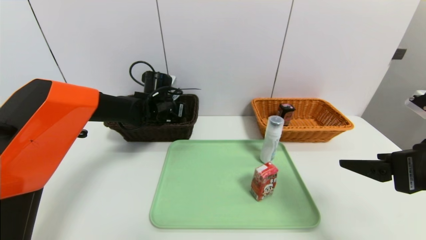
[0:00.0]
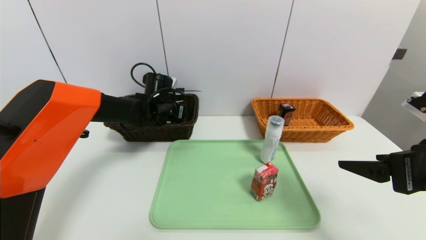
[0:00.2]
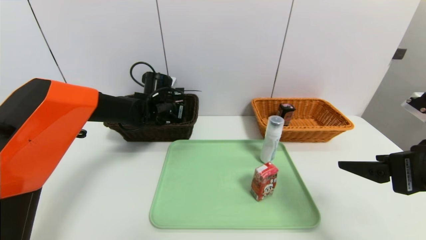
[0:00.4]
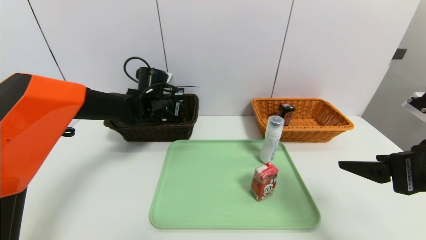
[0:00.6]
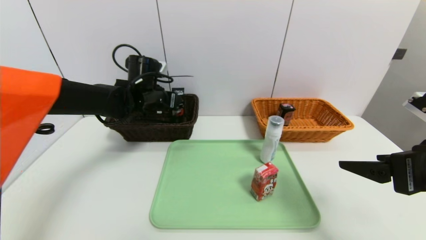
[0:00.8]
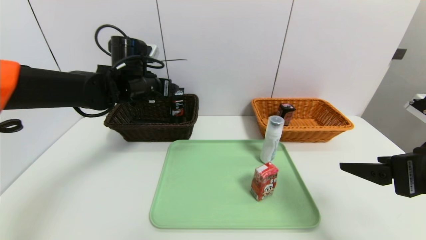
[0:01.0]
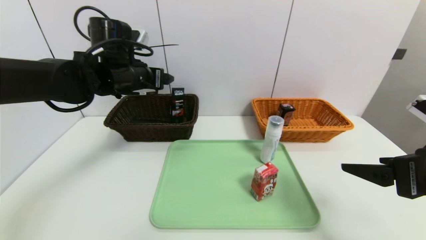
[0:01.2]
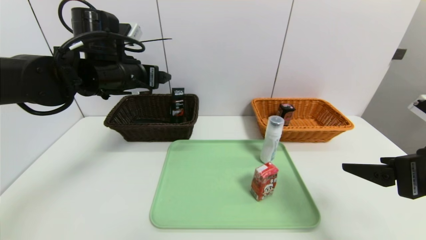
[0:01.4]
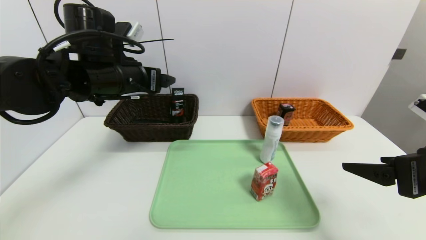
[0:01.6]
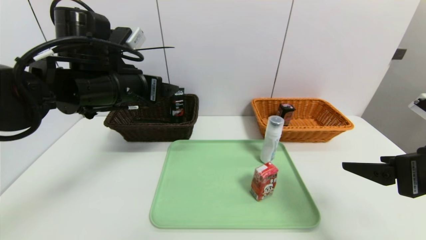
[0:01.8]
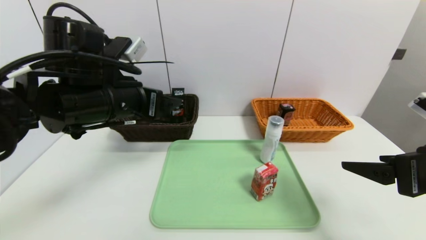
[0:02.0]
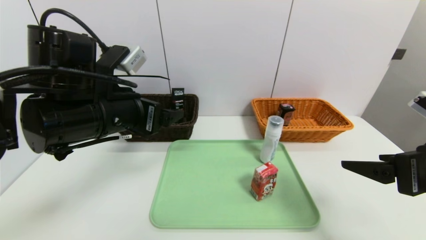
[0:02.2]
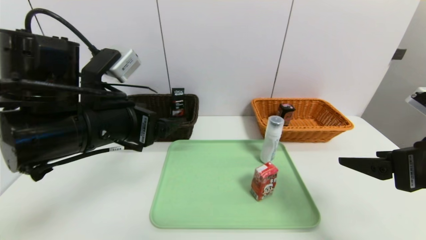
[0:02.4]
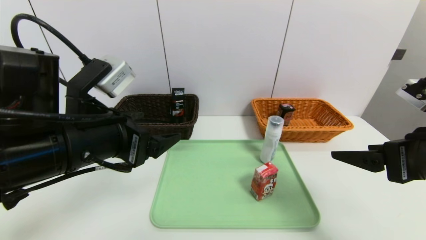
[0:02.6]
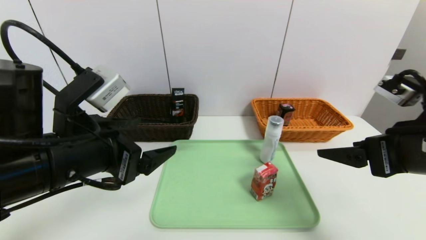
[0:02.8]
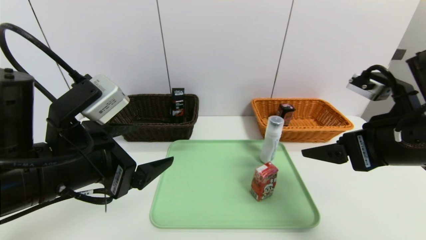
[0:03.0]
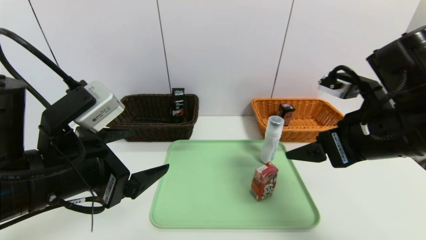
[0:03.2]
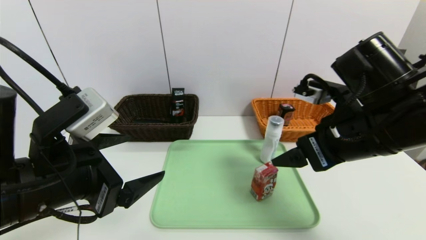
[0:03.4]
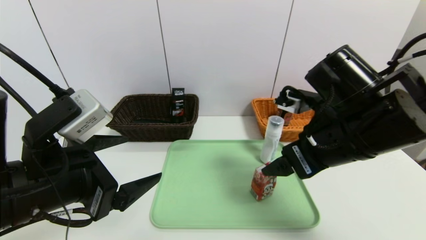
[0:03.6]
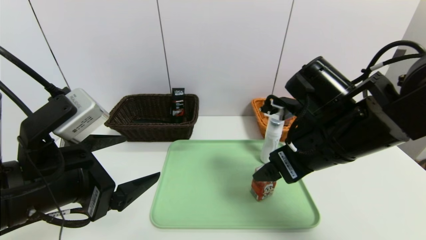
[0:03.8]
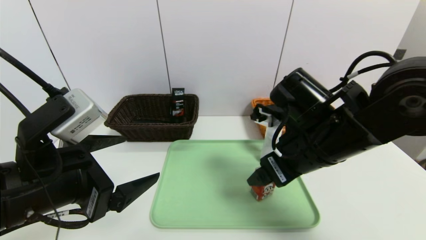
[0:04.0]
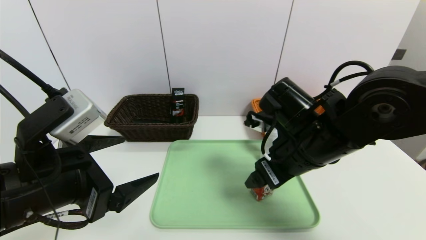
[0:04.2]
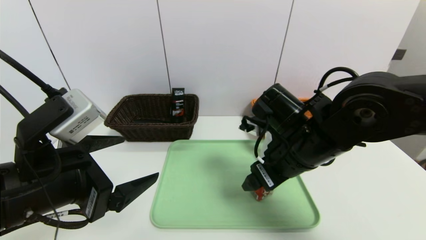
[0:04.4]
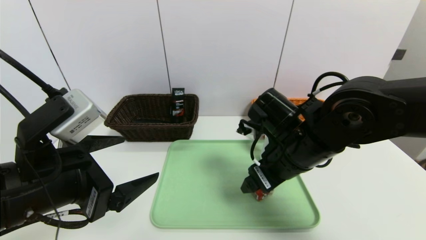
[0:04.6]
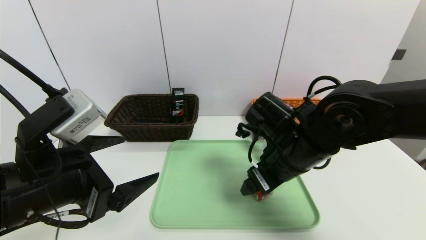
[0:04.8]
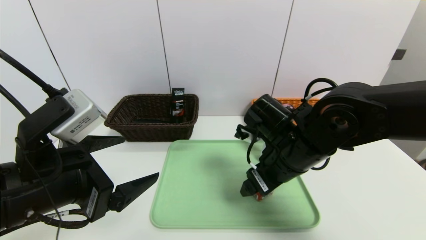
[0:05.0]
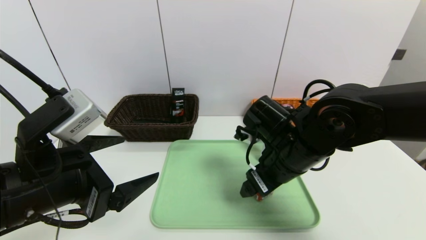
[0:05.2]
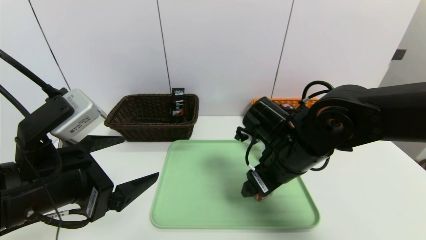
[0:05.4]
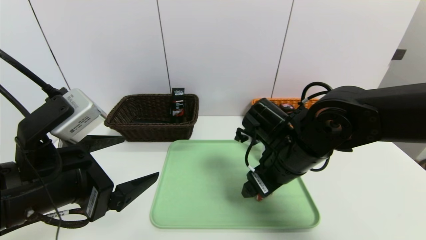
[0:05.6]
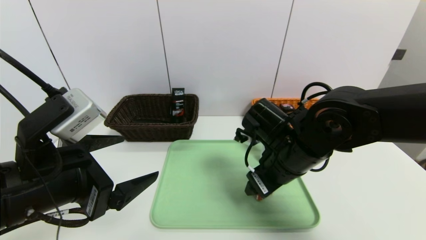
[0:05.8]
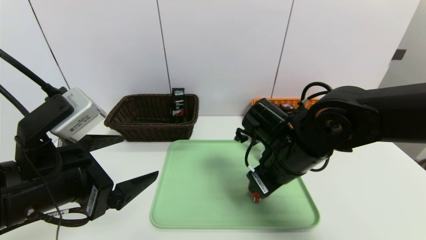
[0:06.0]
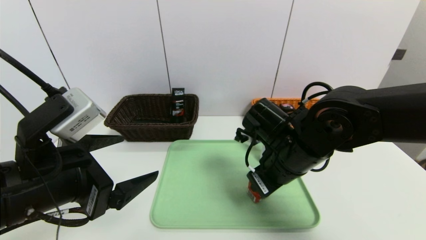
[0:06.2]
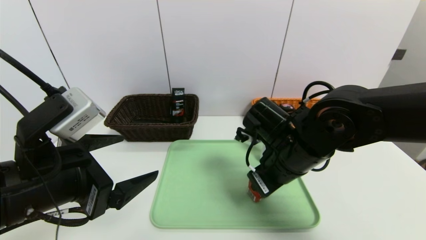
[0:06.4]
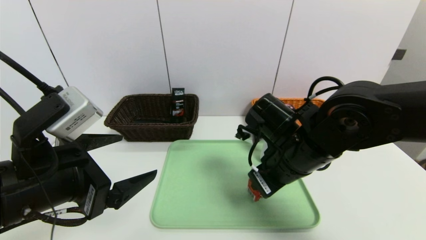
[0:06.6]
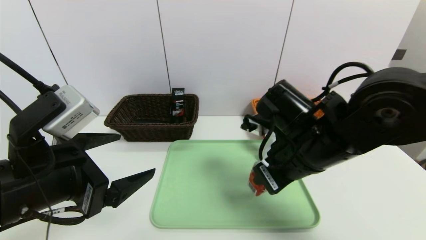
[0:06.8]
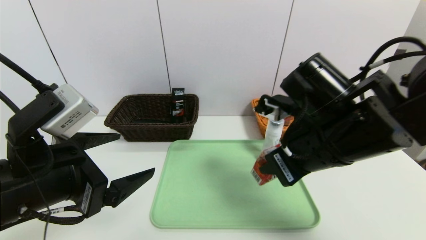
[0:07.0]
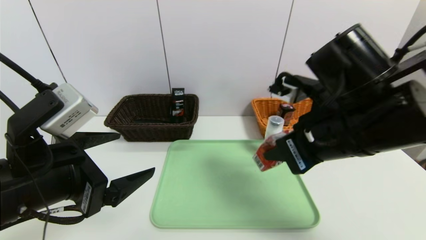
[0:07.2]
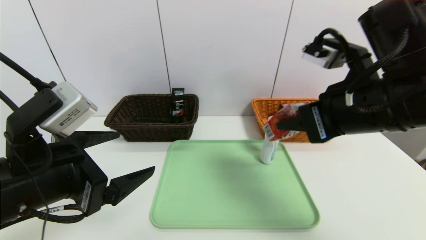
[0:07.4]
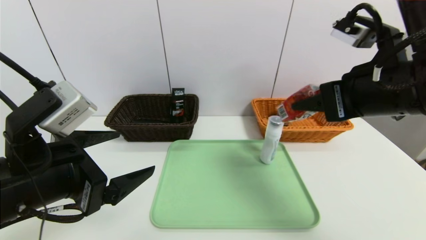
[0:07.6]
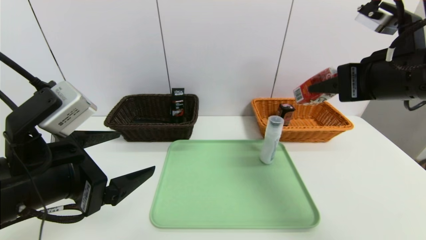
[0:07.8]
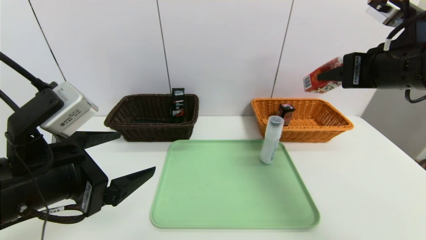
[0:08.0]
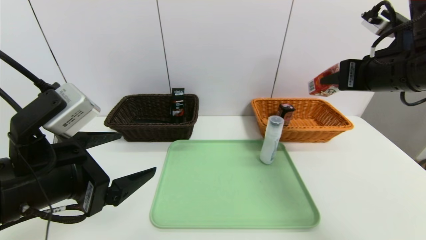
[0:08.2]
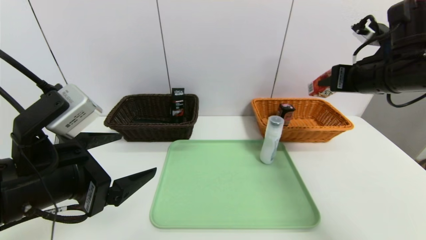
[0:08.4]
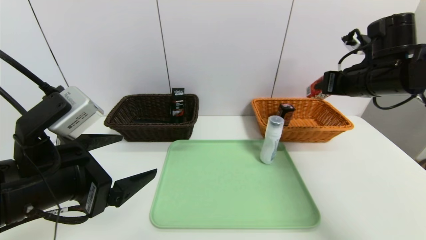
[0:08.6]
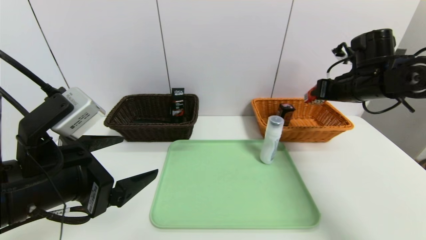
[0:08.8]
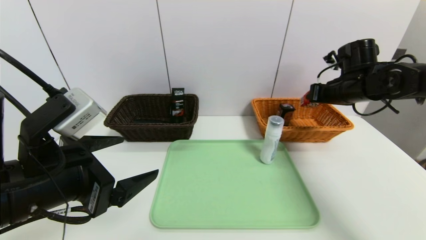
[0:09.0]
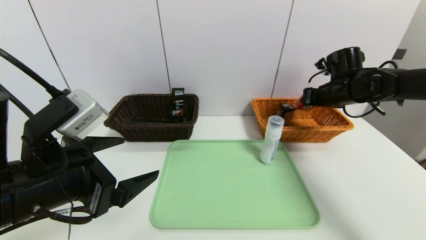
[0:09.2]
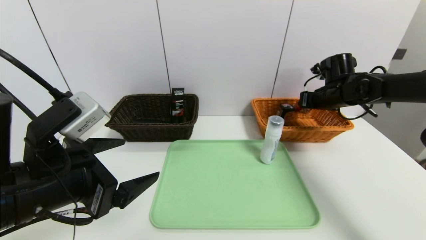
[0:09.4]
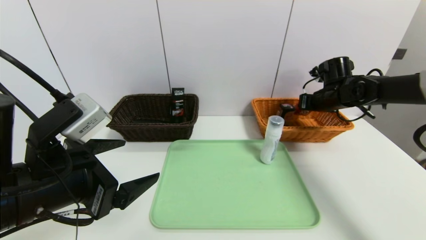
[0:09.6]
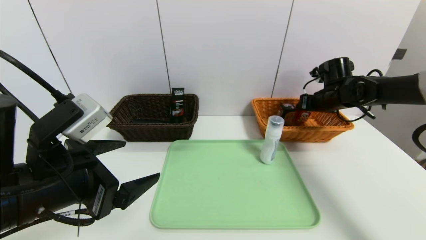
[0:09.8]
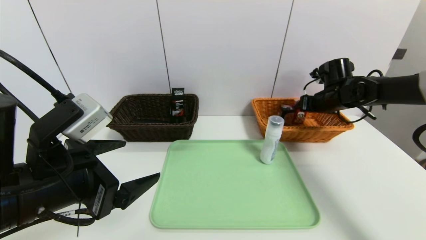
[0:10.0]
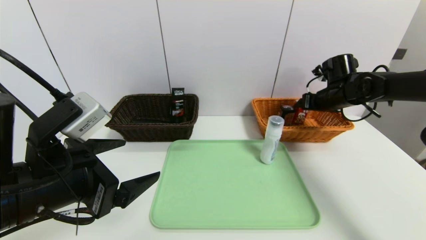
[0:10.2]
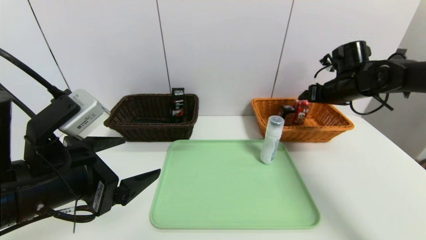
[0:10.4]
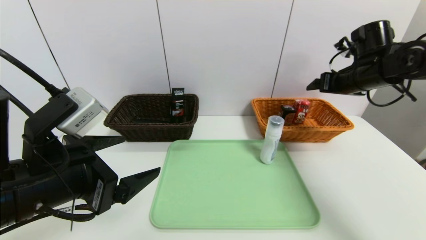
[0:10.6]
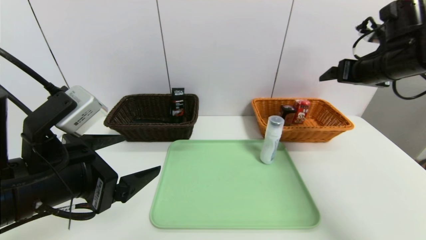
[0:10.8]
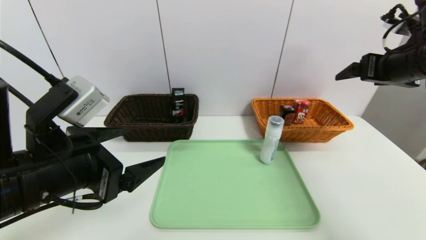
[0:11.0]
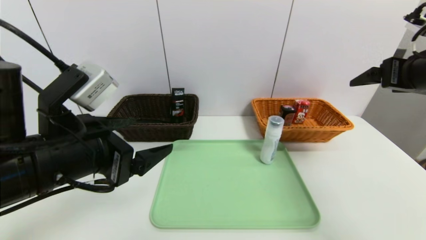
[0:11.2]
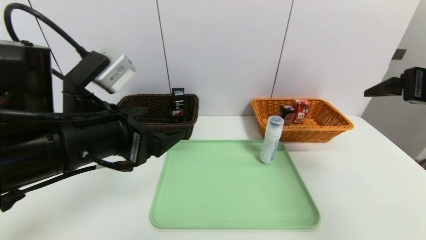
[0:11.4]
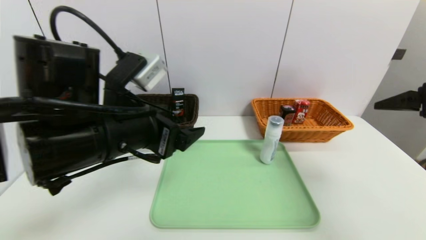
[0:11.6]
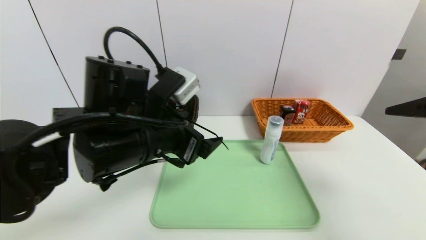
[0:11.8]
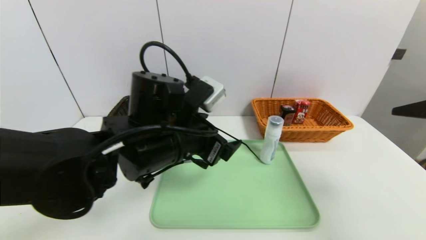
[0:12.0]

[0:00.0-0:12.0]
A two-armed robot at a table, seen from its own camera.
Task of the whole recording: place the food in the right basket with the right gripper, and place the non food items in the left basket with the left gripper.
Step, 0:01.2 to 0:10.4: Grasp the ad milk and put it in the right basket.
0:00.0 to 0:01.6: The left gripper moves backward and upward, about 20 cm, and opens up.
0:01.6 to 0:03.0: The right gripper is displaced to the left by about 5 cm. The left gripper is displaced backward by about 15 cm.
0:03.0 to 0:04.4: The right gripper heads to the left, forward and downward, covering about 15 cm.
0:04.4 to 0:06.0: The right gripper closes.
0:06.0 to 0:07.6: The right gripper is displaced upward and to the right by some 15 cm.
0:07.6 to 0:09.0: The right gripper shifts approximately 25 cm forward, downward and to the right.
0:09.0 to 0:10.4: The right gripper opens up.
0:10.4 to 0:12.0: The left gripper is displaced to the right and forward by approximately 15 cm, while the right gripper is displaced backward by roughly 25 cm.

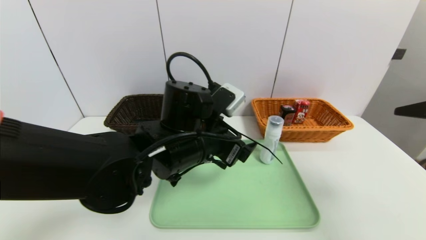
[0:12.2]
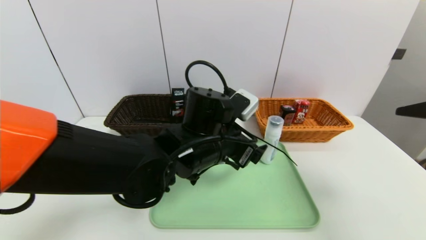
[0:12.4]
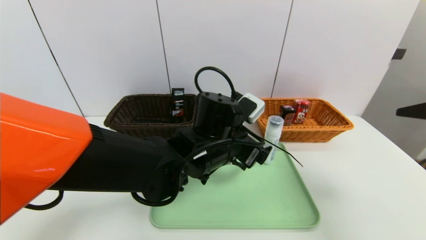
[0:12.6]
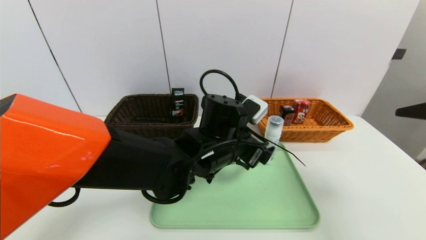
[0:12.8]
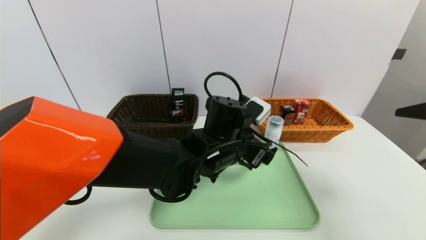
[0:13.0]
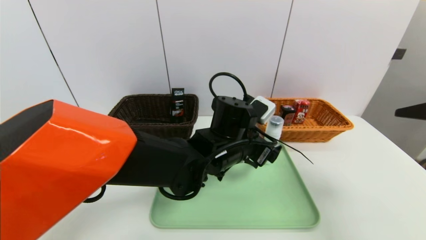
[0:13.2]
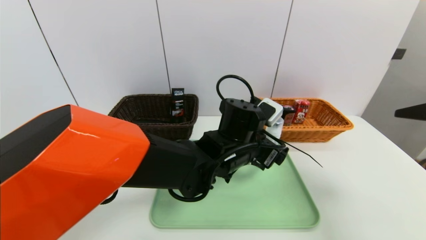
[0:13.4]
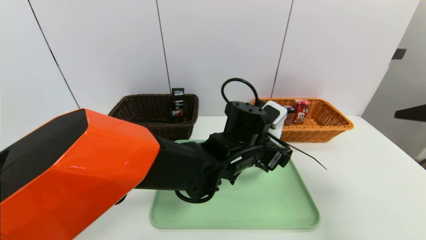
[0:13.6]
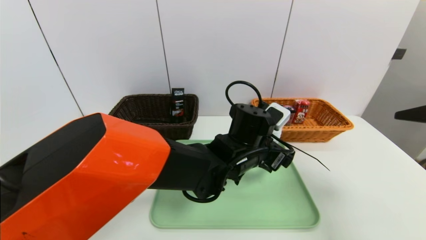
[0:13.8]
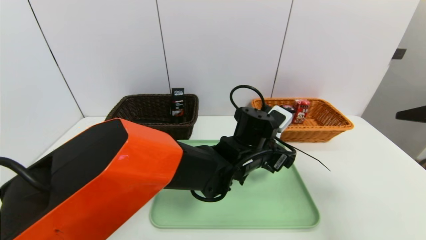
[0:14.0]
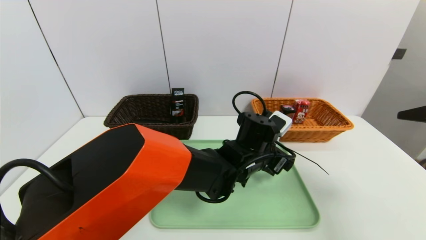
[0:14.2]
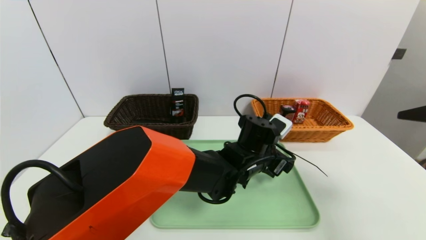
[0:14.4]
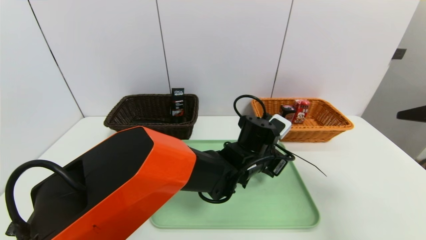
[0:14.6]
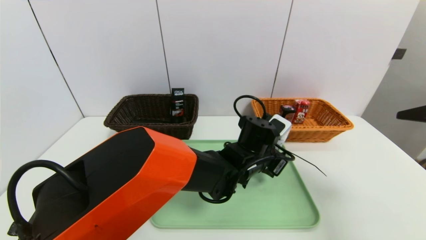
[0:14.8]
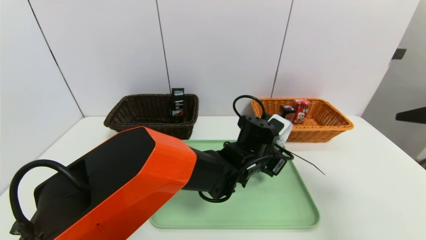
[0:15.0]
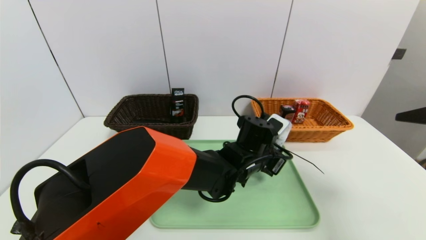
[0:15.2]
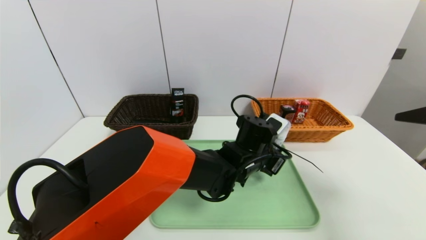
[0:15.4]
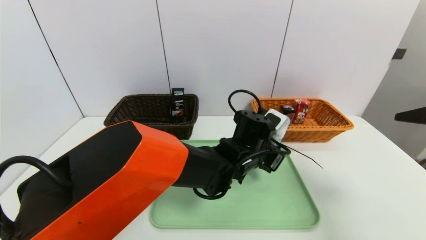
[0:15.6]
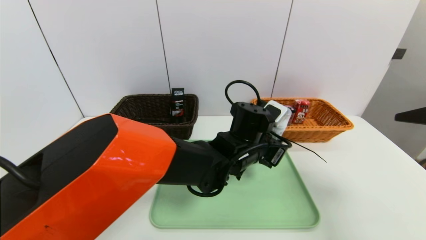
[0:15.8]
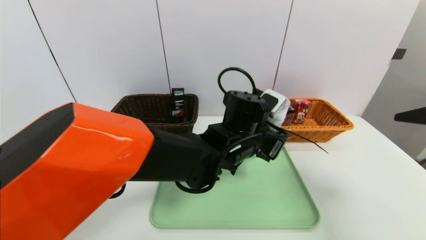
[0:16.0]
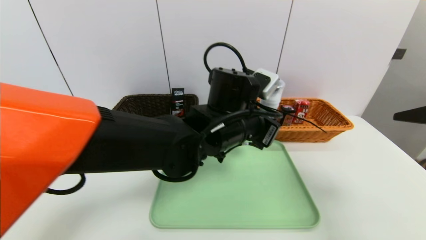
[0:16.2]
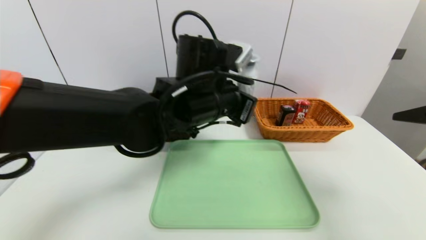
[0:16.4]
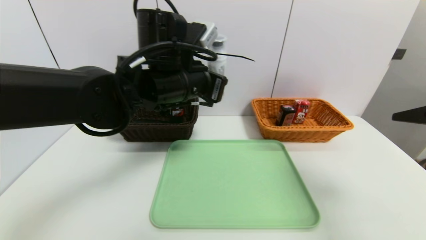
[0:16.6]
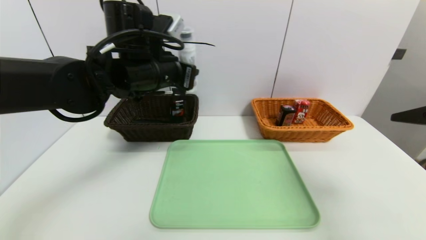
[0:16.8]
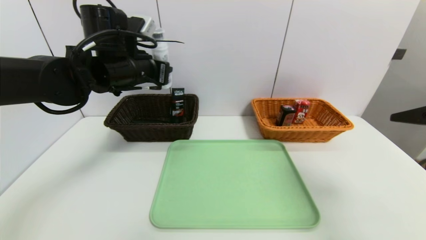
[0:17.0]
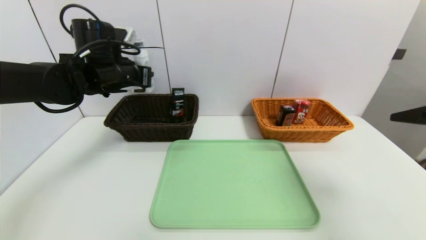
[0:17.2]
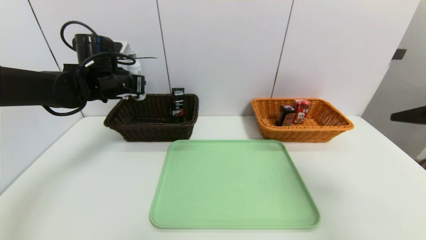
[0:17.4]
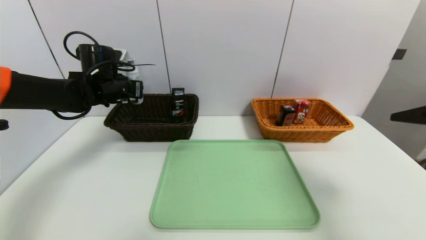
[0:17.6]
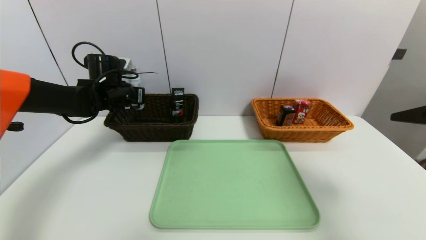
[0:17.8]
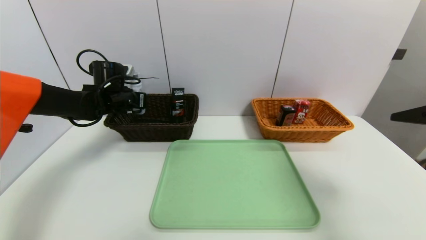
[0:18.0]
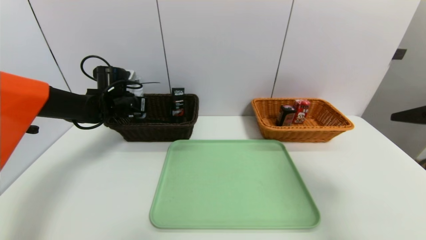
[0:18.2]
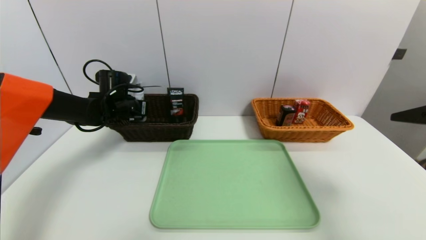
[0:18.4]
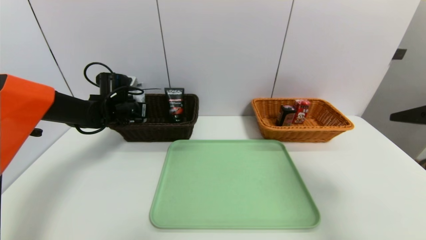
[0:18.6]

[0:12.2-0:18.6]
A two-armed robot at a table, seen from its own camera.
Task of the whole recording: place the food in the right basket with the right gripper, and place the non food items in the left basket with the left gripper.
0:12.2 to 0:13.8: The left gripper moves to the right and downward, about 10 cm.
0:13.8 to 0:15.4: The left gripper closes up.
0:15.4 to 0:17.0: The left gripper is displaced to the left and upward by approximately 30 cm.
0:17.0 to 0:18.6: The left gripper is displaced downward, forward and to the left by some 20 cm.
